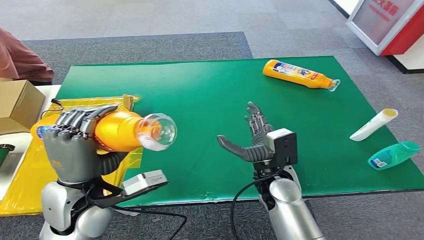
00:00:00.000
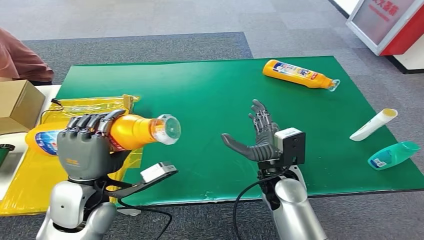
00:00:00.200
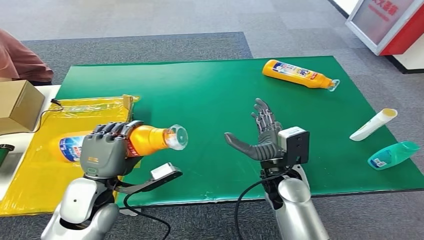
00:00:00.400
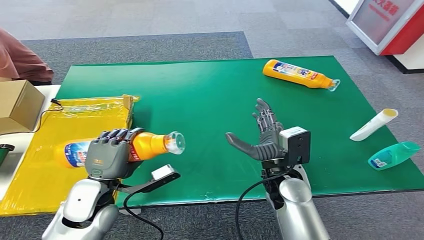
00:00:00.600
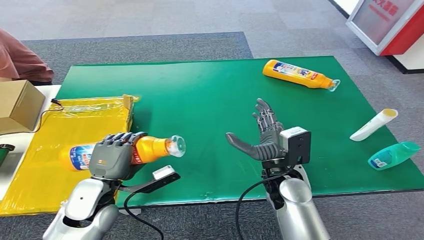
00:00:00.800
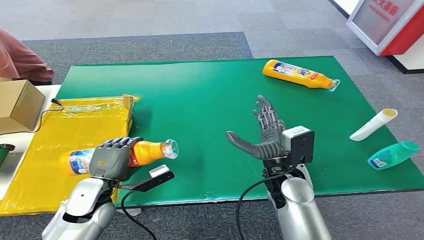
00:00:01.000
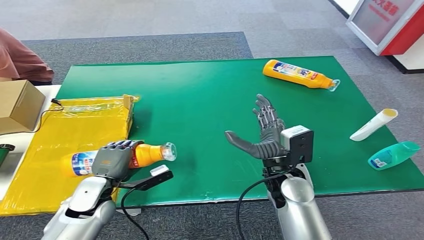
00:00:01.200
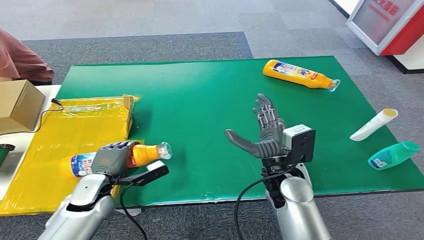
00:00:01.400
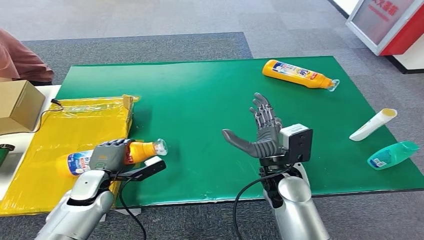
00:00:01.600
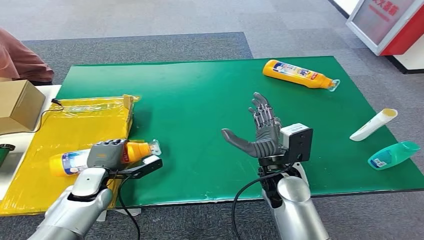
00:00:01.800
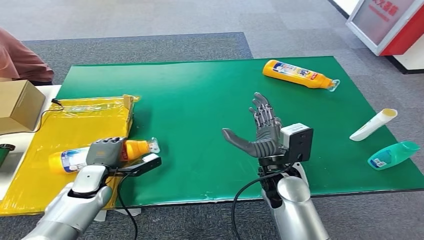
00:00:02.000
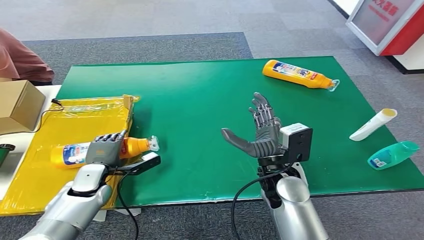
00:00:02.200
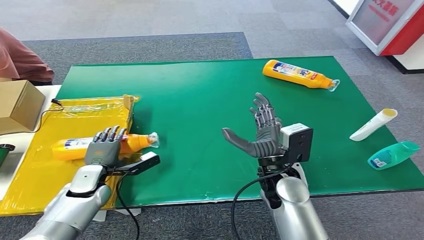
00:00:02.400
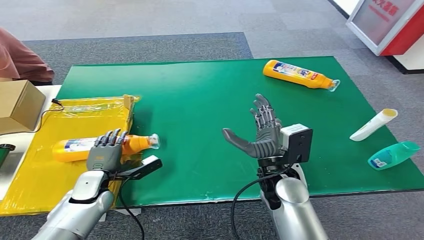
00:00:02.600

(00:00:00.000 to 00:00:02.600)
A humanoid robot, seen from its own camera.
Step, 00:00:00.000 - 00:00:02.600: Turn the bottle to the front side.
00:00:00.000 - 00:00:01.200: The left hand heads downward, covering some 15 cm.
00:00:01.200 - 00:00:02.600: The left hand moves roughly 5 cm.
